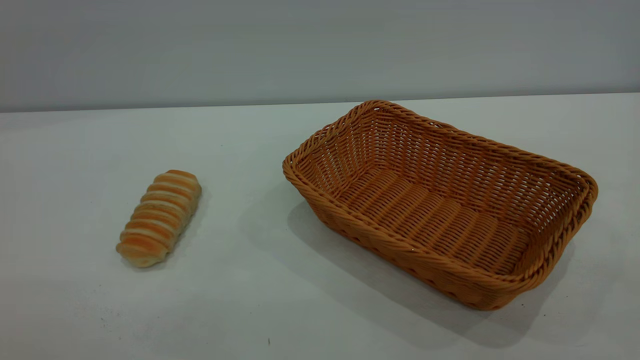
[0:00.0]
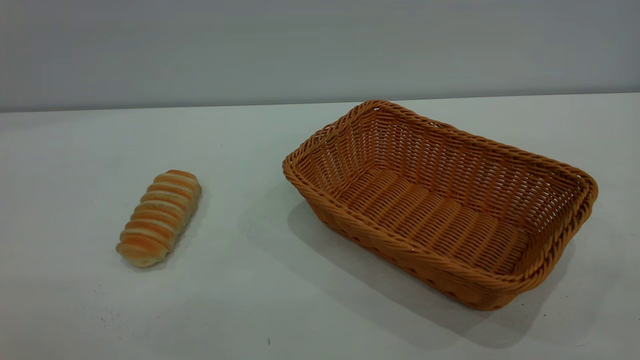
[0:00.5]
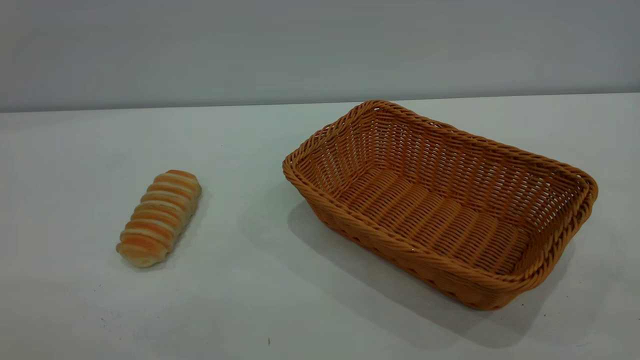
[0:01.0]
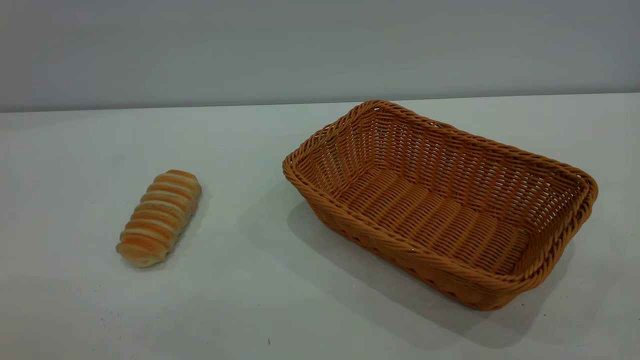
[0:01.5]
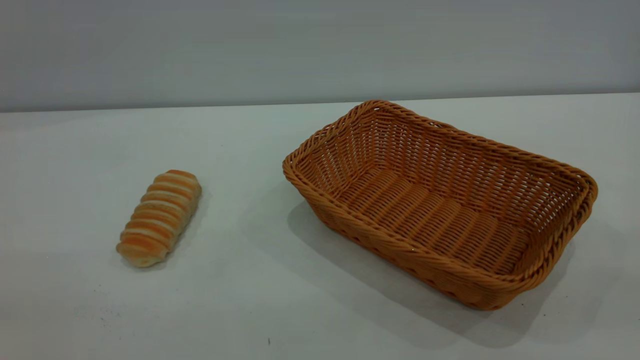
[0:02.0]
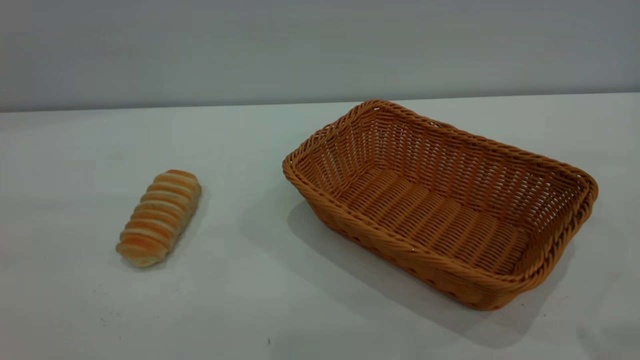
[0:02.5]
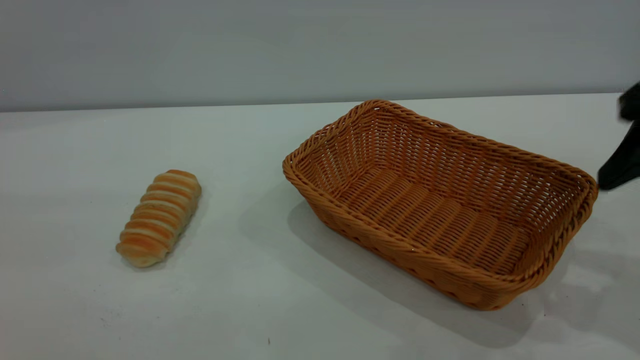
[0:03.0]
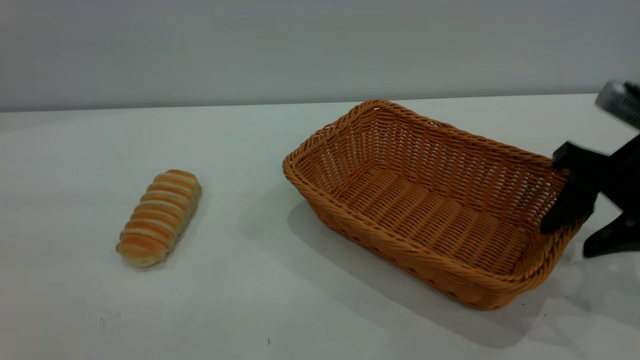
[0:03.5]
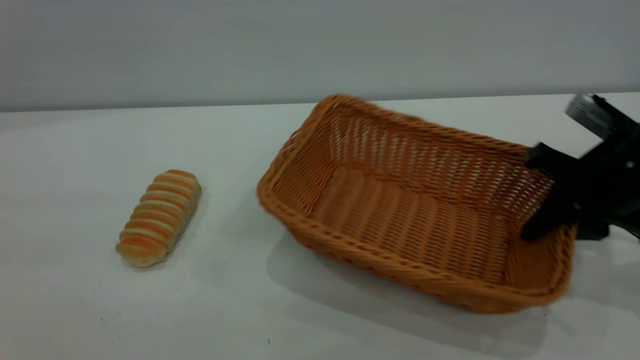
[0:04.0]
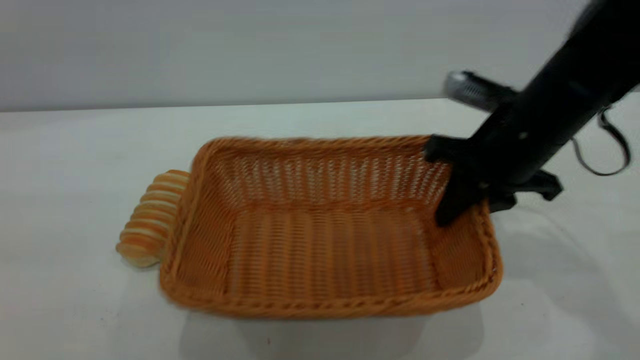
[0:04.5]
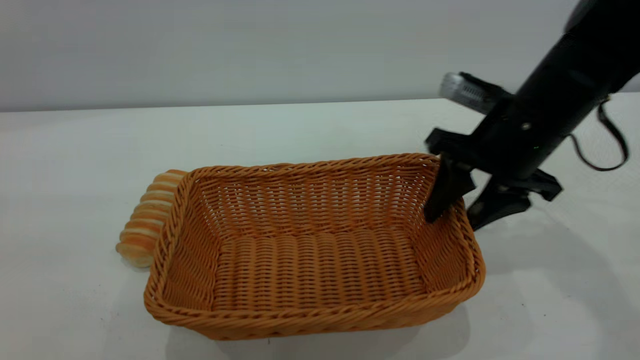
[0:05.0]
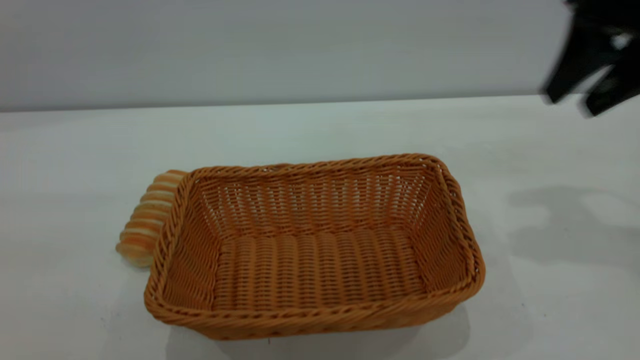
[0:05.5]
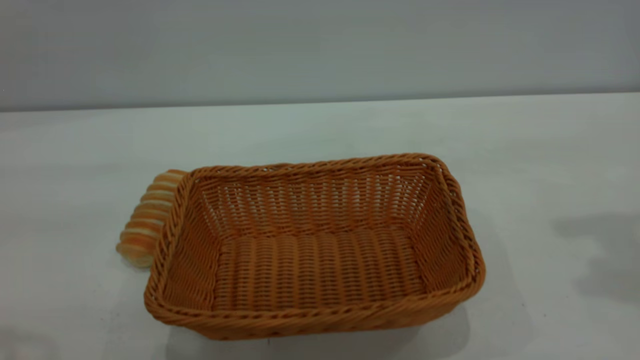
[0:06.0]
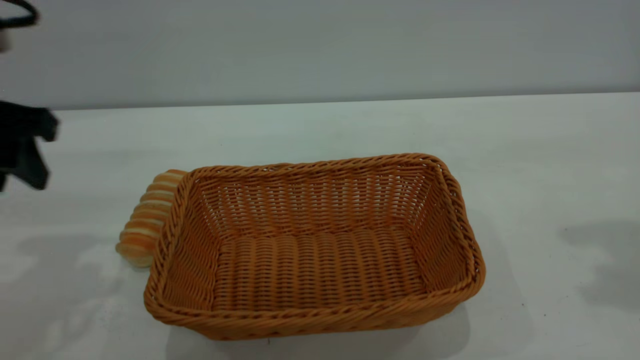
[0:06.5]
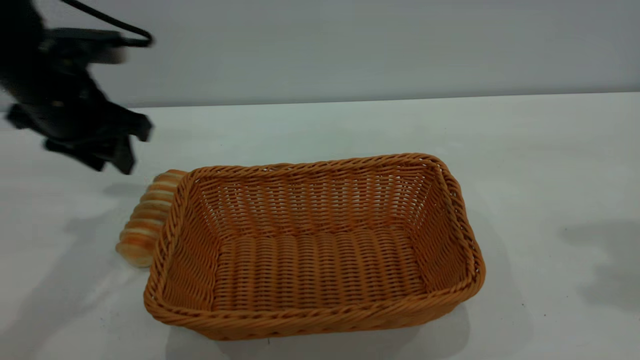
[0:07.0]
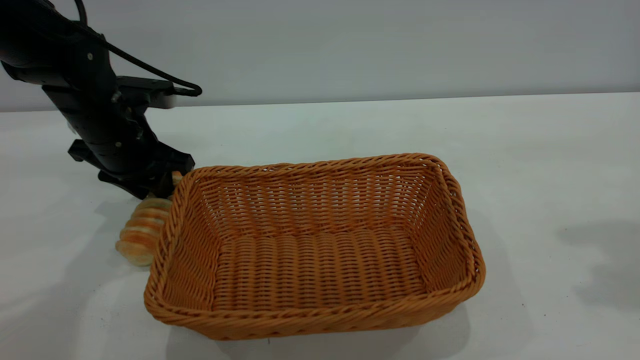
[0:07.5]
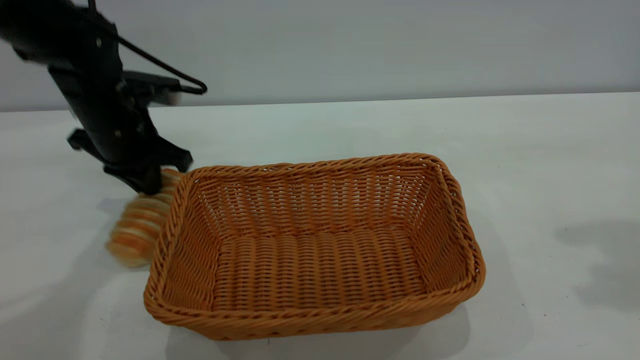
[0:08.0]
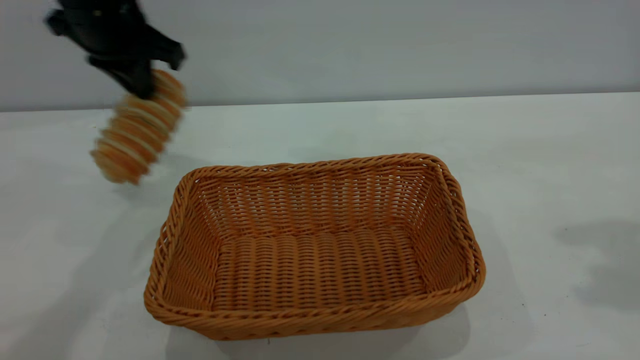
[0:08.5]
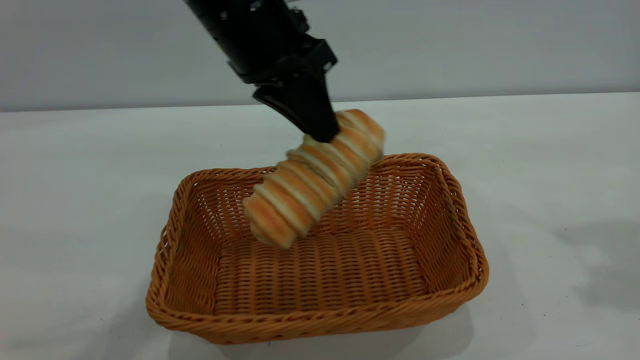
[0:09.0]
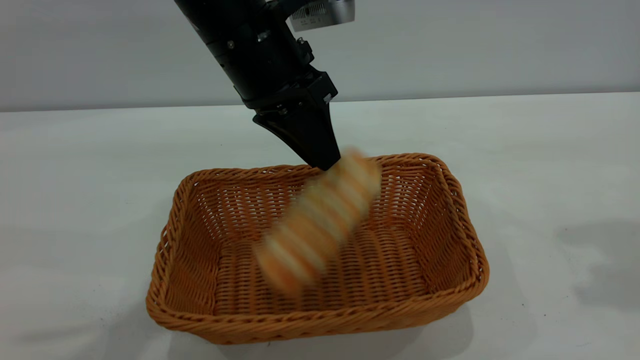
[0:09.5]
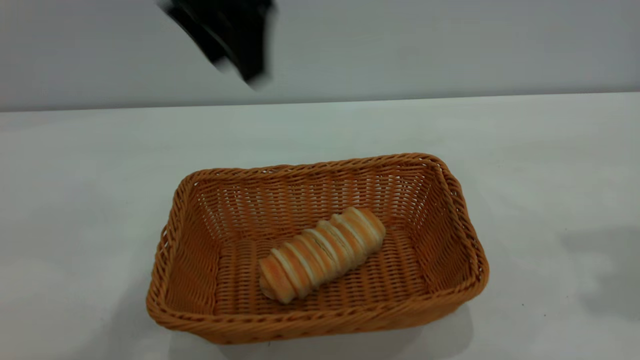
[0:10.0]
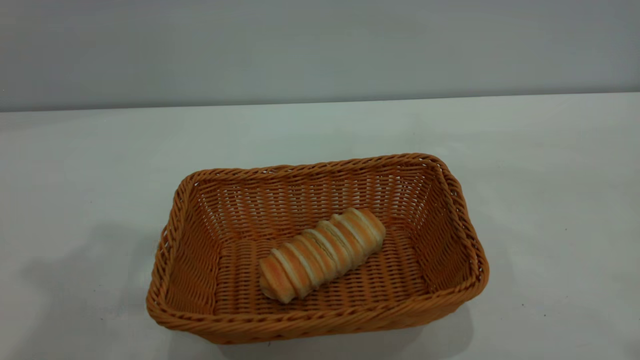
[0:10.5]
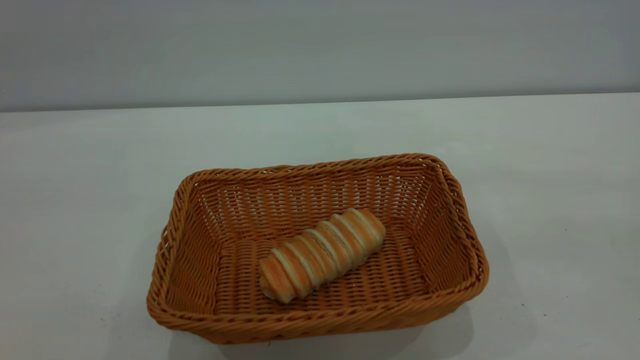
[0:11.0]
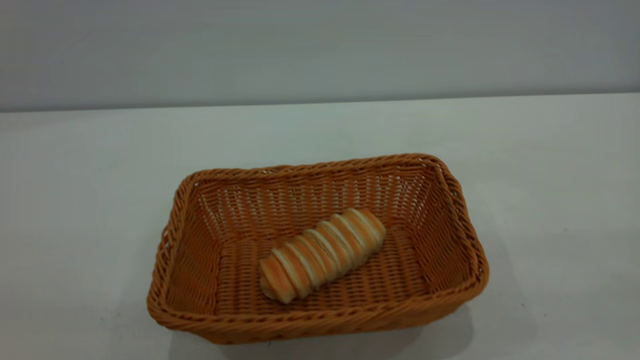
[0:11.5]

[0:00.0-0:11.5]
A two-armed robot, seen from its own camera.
Task of the whole recording: One hand grasps the yellow basket and places it in the middle of the table, while the other hand picks up the long bread and puts it into the yellow basket.
Step, 0:00.0 to 0:05.0: Move the basket to the center of view.
Step, 0:08.5 to 0:09.5: place the bread into the basket.
0:02.0 to 0:04.0: The right gripper goes about 40 cm forward and downward, and closes its fingers. The left gripper heads forward, covering roughly 5 cm.
0:04.0 to 0:06.0: The left gripper travels forward and downward by approximately 15 cm. The right gripper goes approximately 25 cm upward, and opens its fingers.
0:06.0 to 0:07.5: The left gripper goes roughly 30 cm forward and downward.
0:07.5 to 0:09.5: The left gripper goes about 20 cm to the right and upward, and closes, then opens again.
0:09.5 to 0:11.5: The left gripper travels backward, to the left and upward by some 50 cm, while the right gripper is displaced backward by some 25 cm.

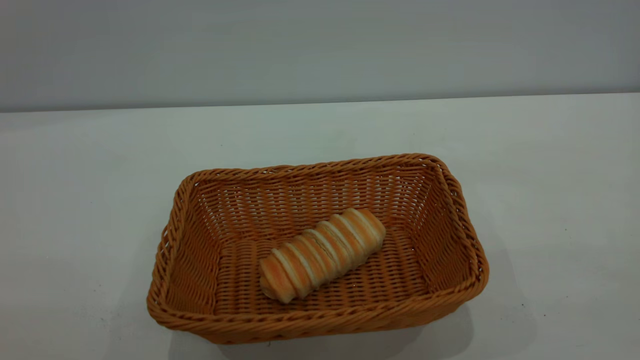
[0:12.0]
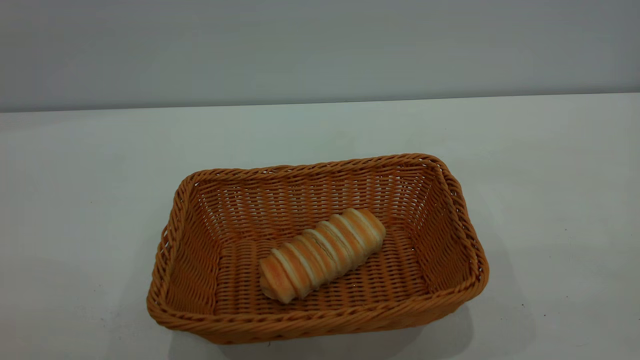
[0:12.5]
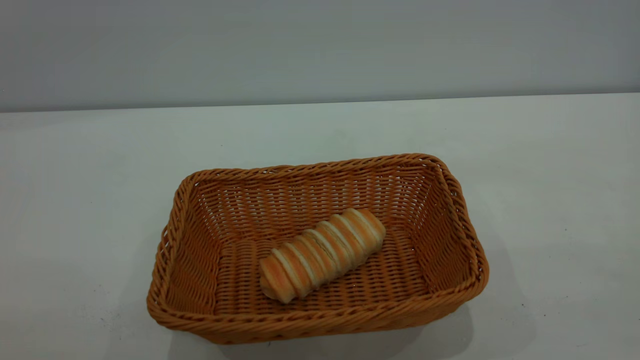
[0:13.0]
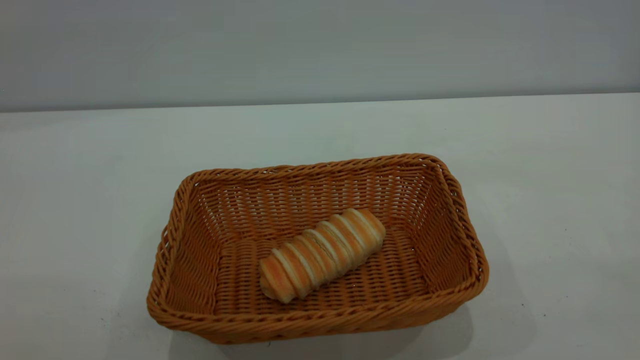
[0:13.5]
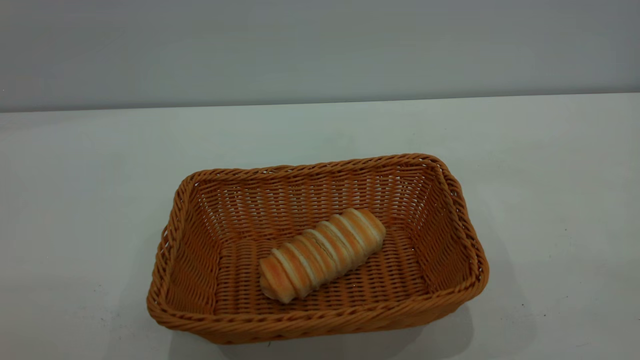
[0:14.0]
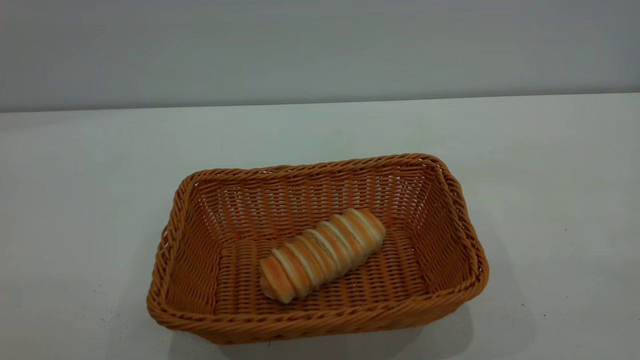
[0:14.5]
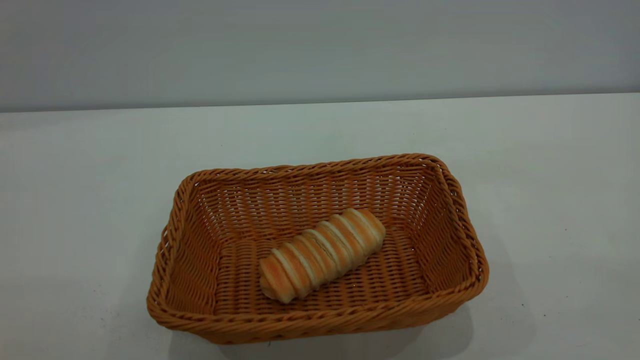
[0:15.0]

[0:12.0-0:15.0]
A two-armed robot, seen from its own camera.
Task of the whole recording: One hand grasps the yellow basket and places it in the middle of the table, while the other hand picks up the long bread and puts it into the yellow basket.
0:13.5 to 0:15.0: Neither gripper changes place.
